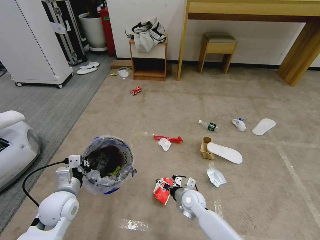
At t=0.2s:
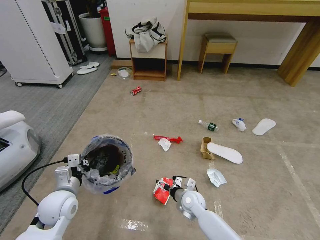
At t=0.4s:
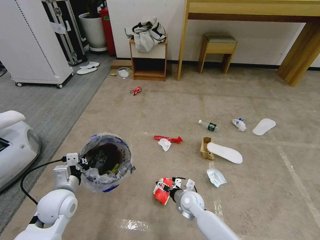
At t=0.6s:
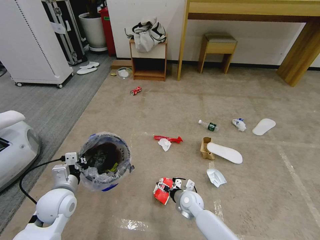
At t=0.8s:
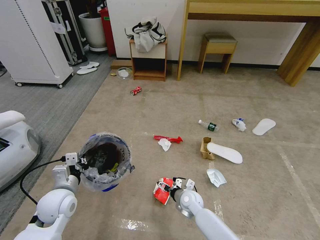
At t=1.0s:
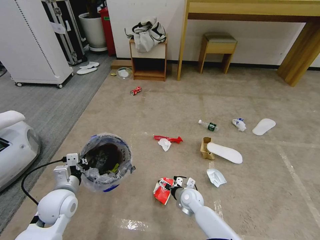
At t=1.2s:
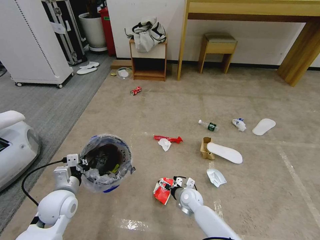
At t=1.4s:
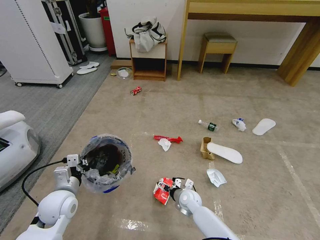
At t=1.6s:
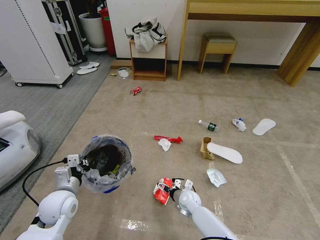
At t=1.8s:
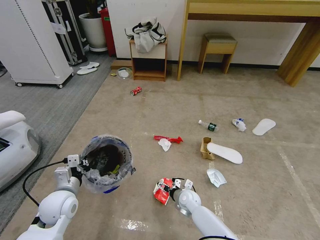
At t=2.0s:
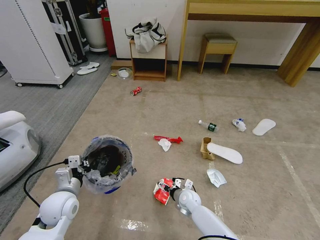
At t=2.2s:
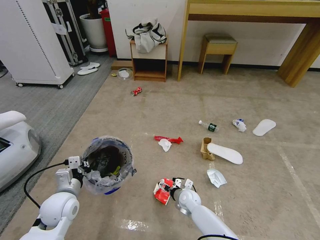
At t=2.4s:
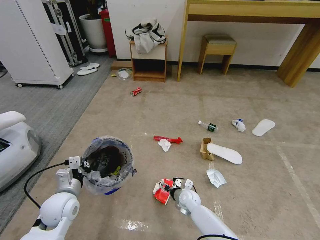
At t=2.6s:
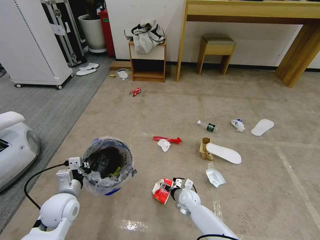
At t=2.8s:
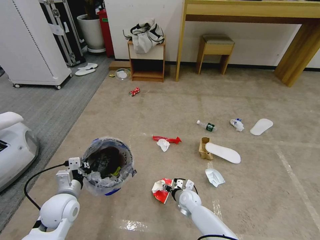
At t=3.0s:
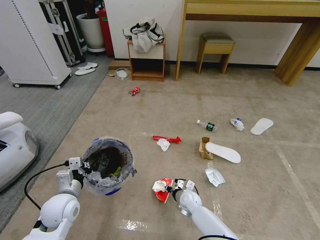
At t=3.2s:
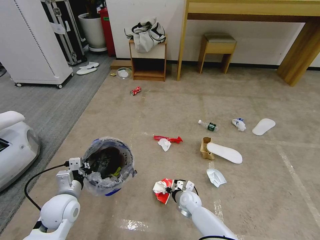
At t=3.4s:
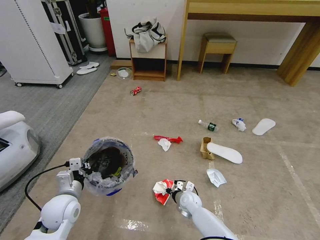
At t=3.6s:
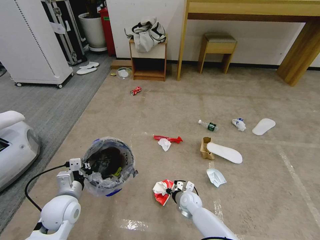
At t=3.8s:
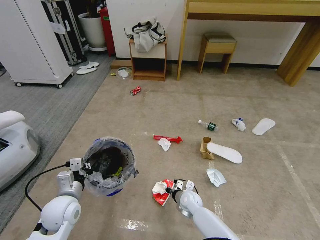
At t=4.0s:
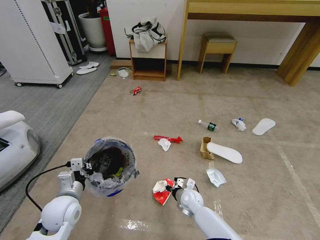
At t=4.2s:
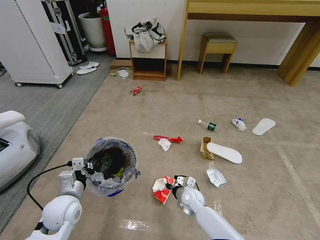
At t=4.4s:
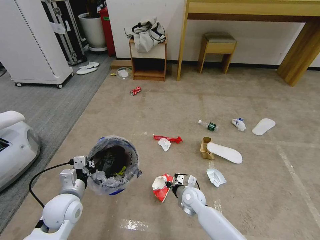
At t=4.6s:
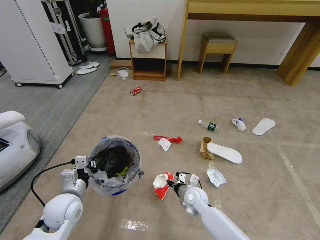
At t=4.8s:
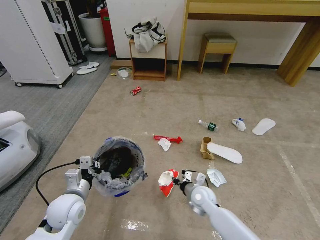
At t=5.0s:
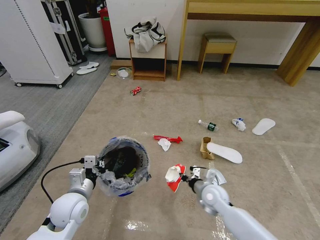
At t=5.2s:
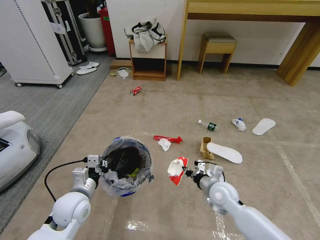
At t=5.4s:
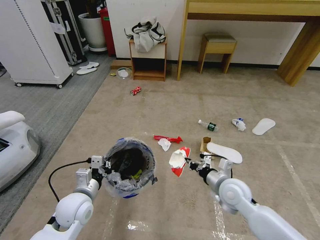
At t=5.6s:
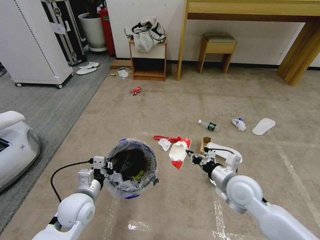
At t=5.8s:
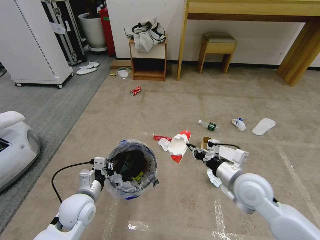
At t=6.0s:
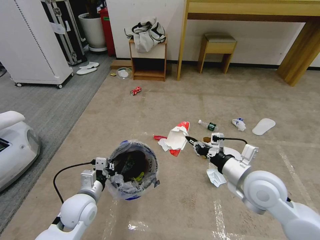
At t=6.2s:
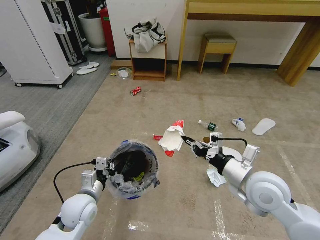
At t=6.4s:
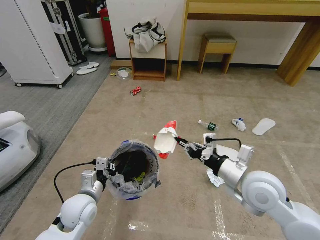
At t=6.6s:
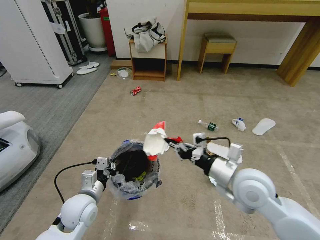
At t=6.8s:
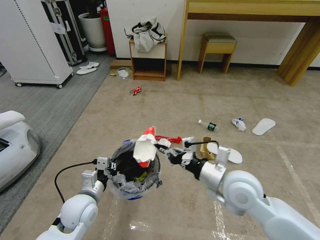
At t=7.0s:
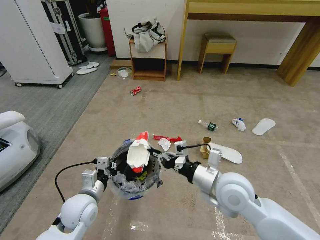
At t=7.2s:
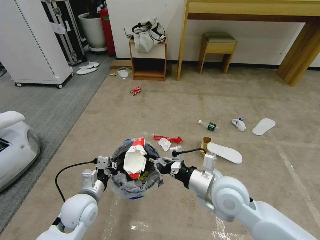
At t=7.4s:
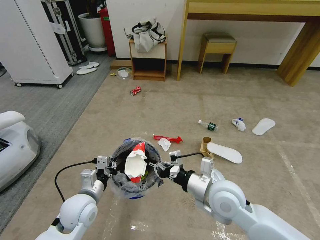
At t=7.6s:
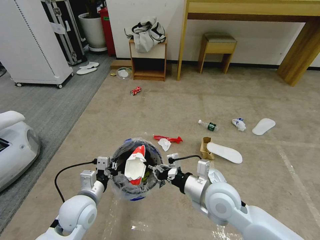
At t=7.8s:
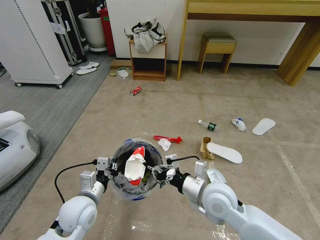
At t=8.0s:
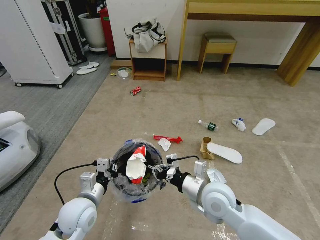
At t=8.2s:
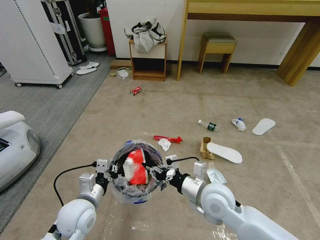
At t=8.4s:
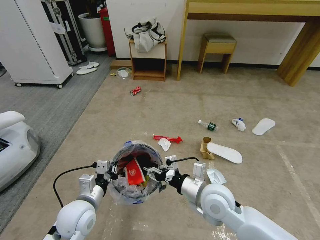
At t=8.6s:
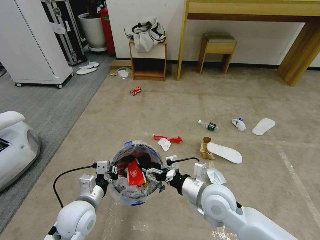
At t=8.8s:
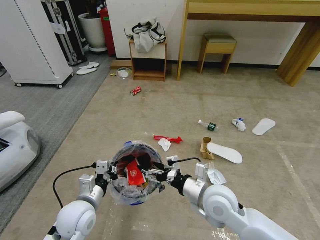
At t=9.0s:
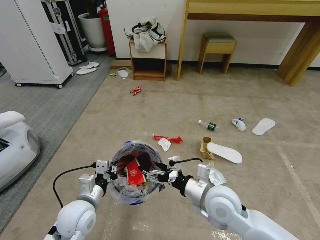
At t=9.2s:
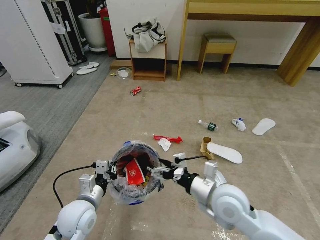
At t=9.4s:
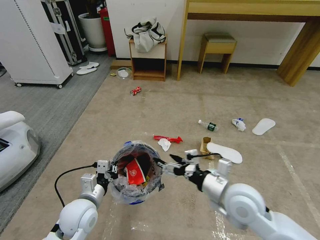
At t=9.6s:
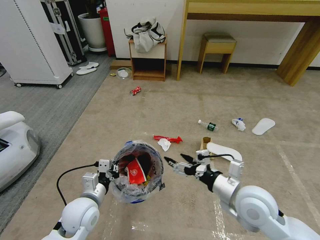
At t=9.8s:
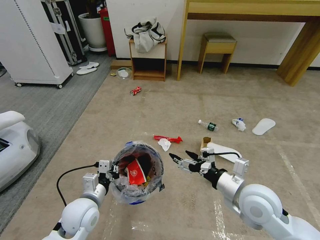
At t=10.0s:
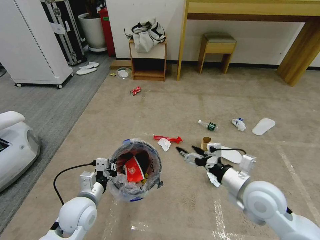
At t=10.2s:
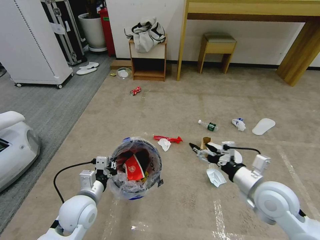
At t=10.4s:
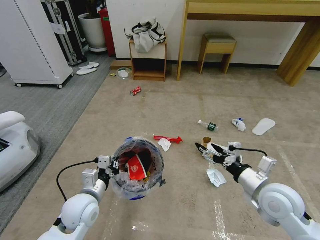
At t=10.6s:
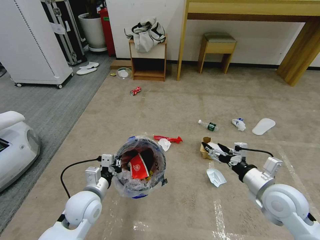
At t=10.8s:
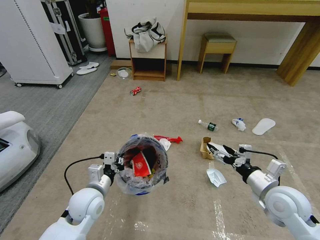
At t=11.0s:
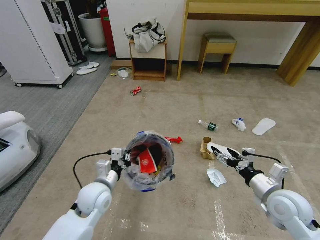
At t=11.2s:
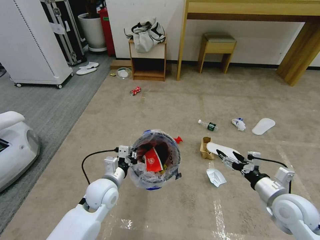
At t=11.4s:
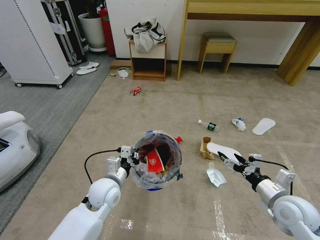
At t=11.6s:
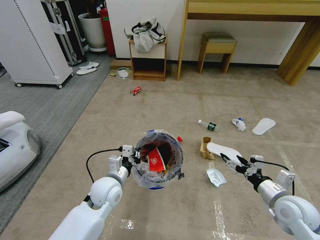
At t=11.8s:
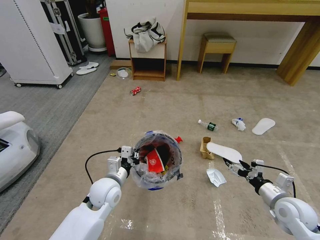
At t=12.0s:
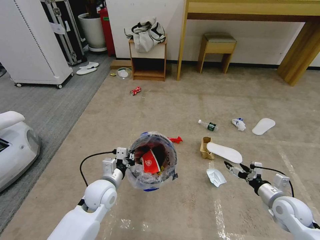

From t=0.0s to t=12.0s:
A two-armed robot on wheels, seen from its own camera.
Task of the whole recording: Pick up the trash bin and place the garbage on the floor into it.
From t=0.0s to t=1.6s: The right gripper moves about 5 cm.
From t=1.6s to t=3.0s: The right gripper closes its fingers.
From t=3.0s to t=4.4s: The right gripper is displaced upward by some 5 cm.
From t=4.4s to t=6.0s: The right gripper shifts approximately 30 cm upward and to the right.
From t=6.0s to t=7.6s: The right gripper is displaced to the left by some 10 cm.
From t=7.6s to t=9.0s: The right gripper opens up.
From t=9.0s to t=10.4s: The right gripper moves to the right, some 15 cm.
From t=10.4s to t=12.0s: The left gripper heads forward, covering roughly 5 cm. Meanwhile the right gripper travels downward and to the right by roughly 15 cm.

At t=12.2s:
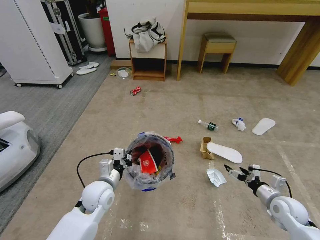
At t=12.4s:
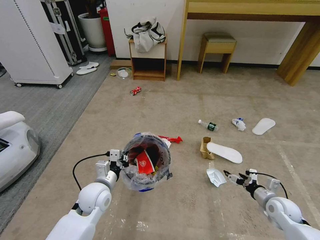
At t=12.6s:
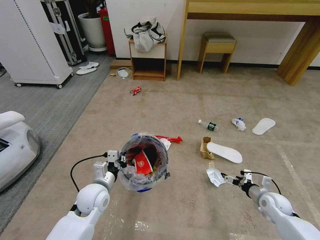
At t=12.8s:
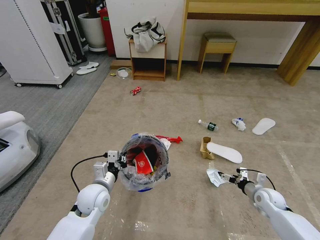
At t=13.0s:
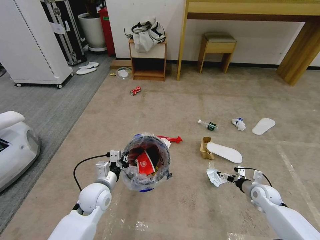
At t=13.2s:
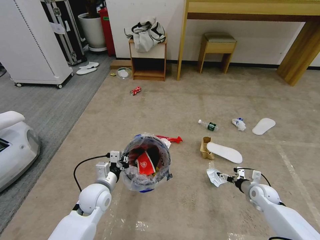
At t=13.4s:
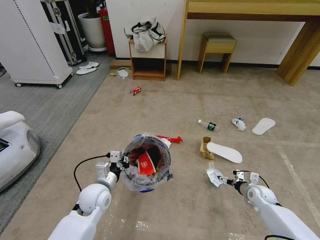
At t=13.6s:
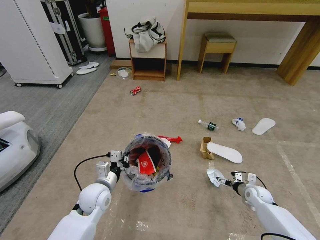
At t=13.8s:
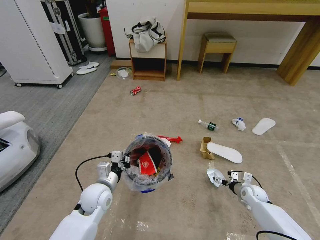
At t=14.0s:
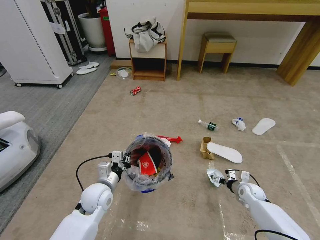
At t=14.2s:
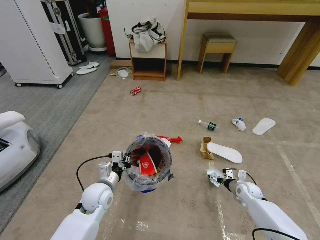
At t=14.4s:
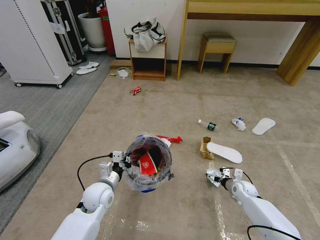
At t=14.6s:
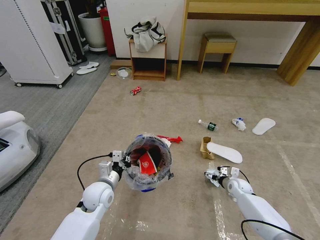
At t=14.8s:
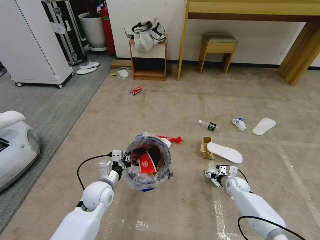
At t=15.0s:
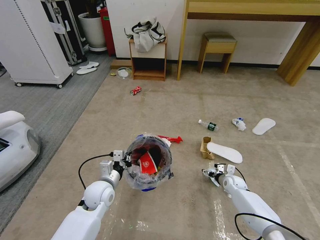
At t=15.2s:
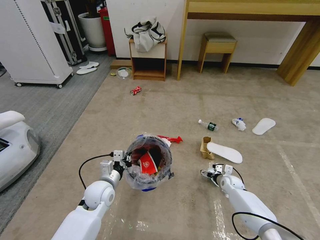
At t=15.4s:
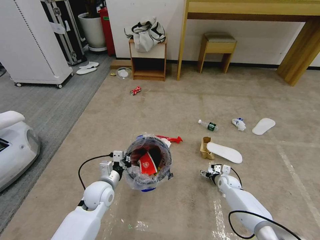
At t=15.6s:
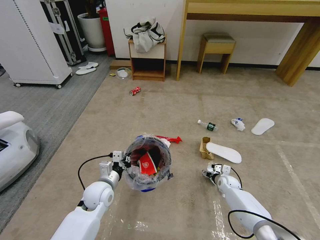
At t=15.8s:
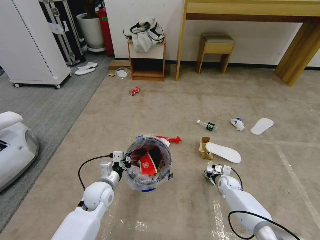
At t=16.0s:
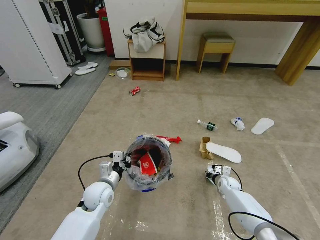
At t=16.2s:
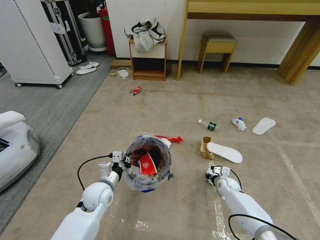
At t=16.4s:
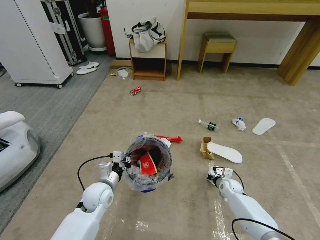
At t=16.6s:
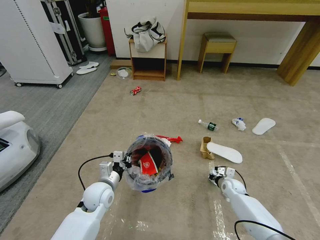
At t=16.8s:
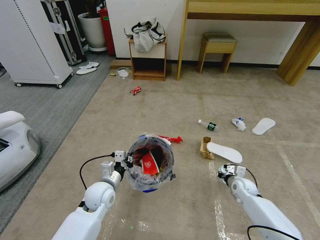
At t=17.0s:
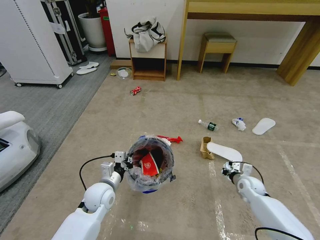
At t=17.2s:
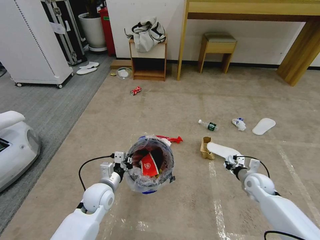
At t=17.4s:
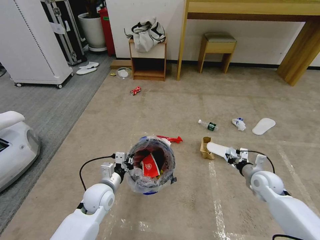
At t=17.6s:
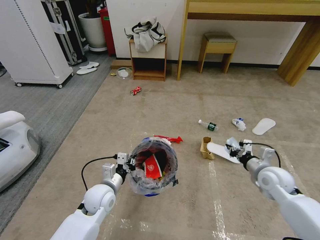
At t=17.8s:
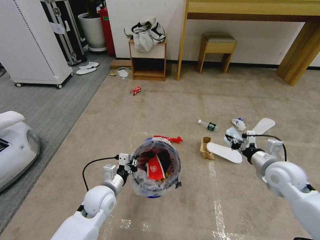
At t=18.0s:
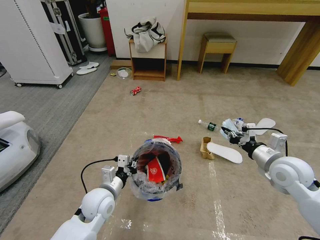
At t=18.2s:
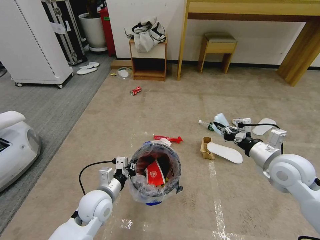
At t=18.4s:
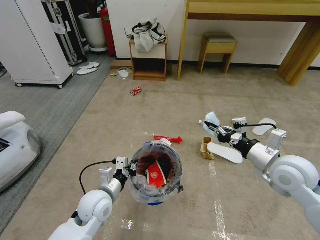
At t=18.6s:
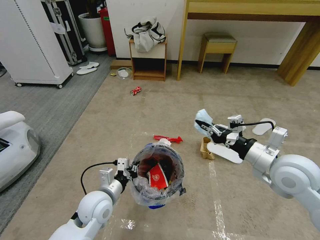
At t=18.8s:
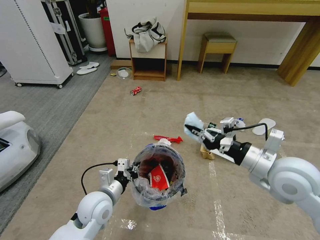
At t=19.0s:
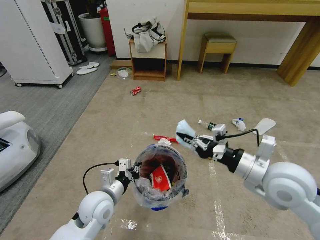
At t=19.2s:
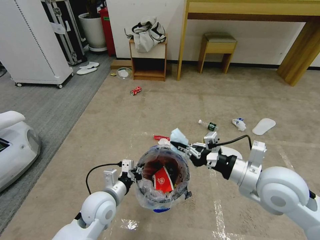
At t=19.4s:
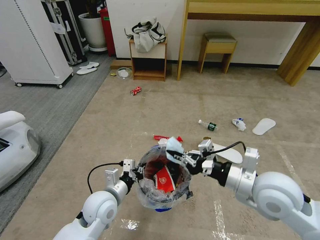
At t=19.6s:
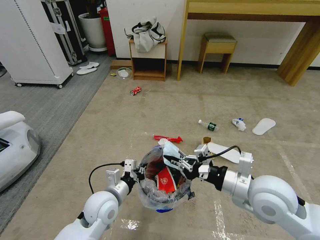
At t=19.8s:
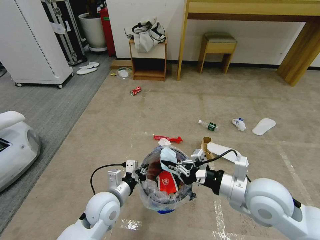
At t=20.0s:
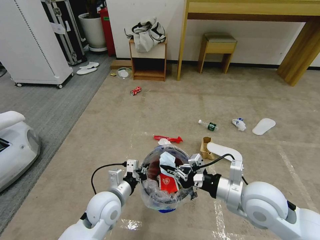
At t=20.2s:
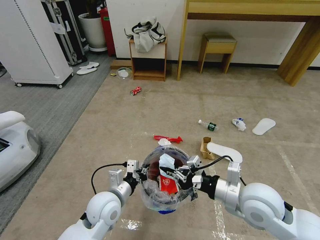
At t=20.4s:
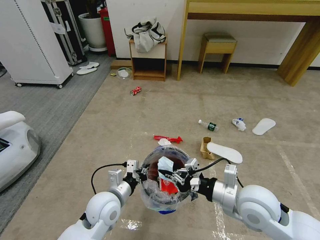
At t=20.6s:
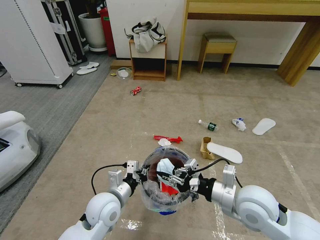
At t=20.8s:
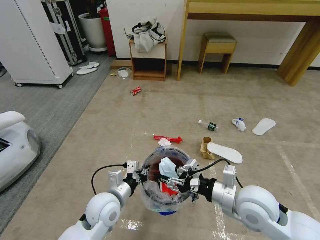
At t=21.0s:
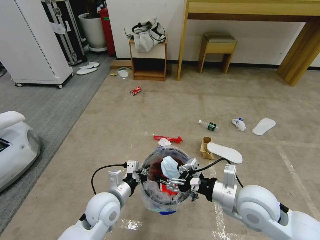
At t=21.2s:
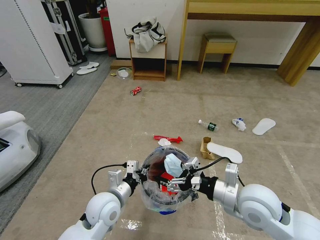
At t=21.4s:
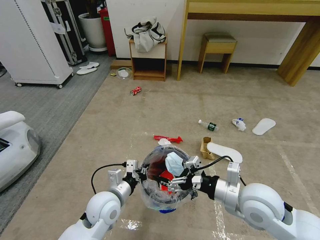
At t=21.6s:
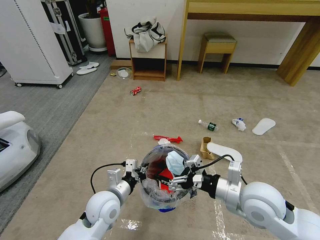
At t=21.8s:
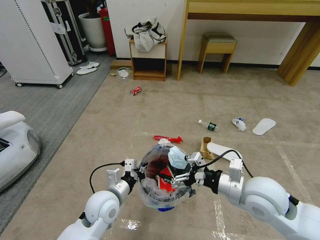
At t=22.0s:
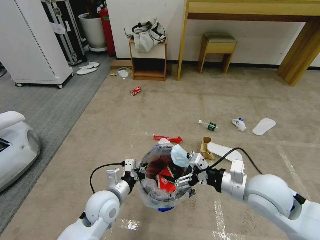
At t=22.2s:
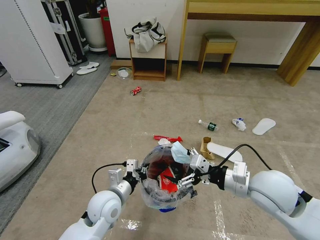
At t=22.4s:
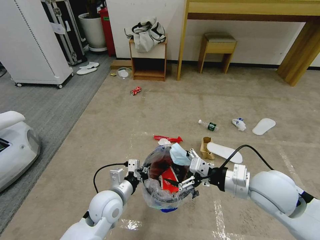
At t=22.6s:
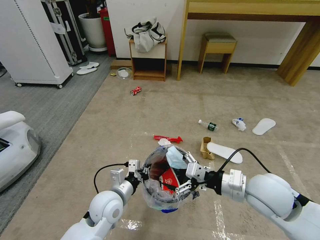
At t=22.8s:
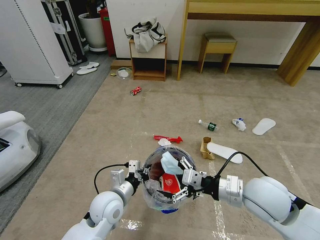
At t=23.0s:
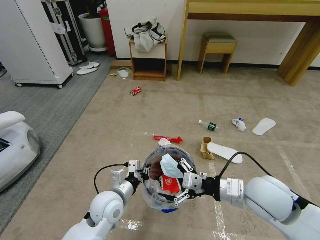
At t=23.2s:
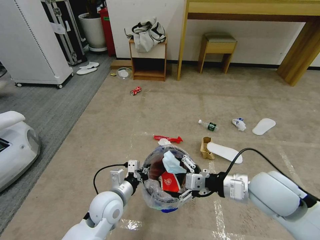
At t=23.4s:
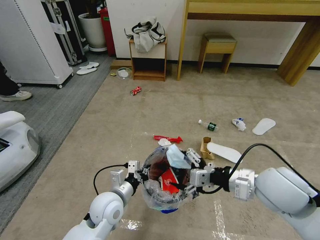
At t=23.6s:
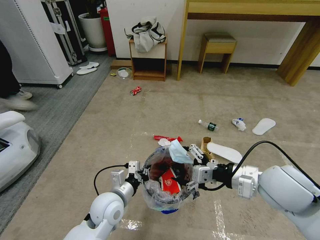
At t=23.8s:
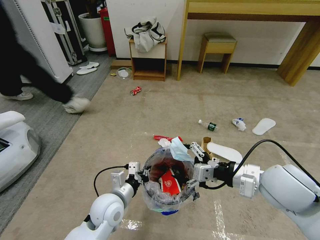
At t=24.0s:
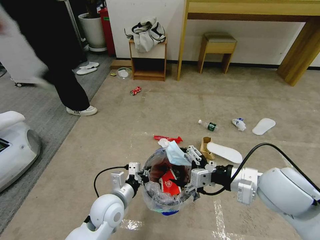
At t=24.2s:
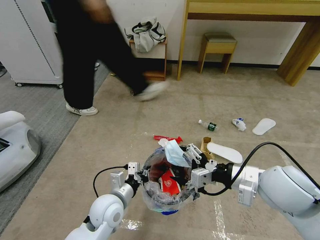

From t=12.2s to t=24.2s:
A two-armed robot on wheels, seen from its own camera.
Task of the whole recording: Pick up the trash bin and place the garbage on the floor into it.
From t=12.2s to t=13.8s: The right gripper is displaced downward and forward by approximately 15 cm.
From t=13.8s to t=15.2s: The right gripper heads to the left and forward, covering some 10 cm.
From t=15.2s to t=16.6s: The right gripper closes.
From t=16.6s to t=18.2s: The left gripper moves roughly 5 cm, while the right gripper moves upward, some 30 cm.
From t=18.2s to t=19.8s: The right gripper goes approximately 15 cm to the left and backward.
From t=19.8s to t=21.2s: The right gripper opens up.
